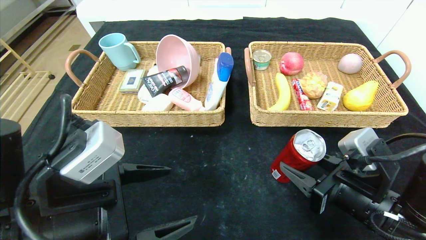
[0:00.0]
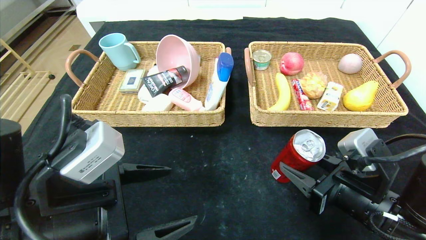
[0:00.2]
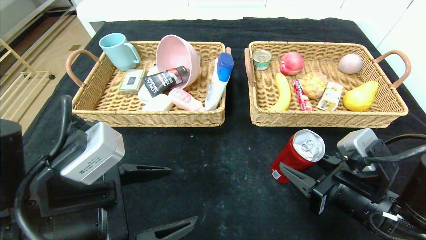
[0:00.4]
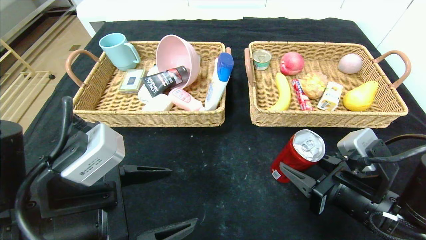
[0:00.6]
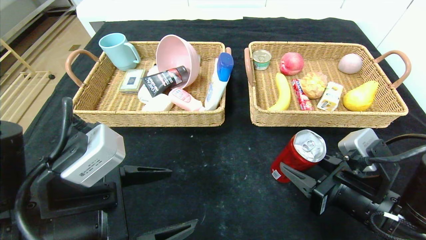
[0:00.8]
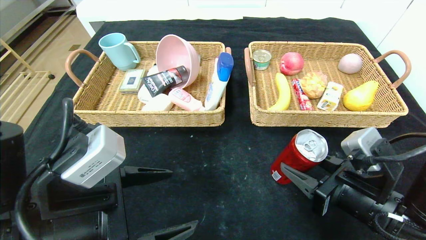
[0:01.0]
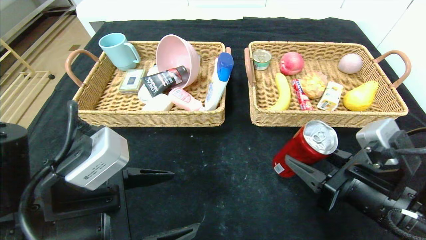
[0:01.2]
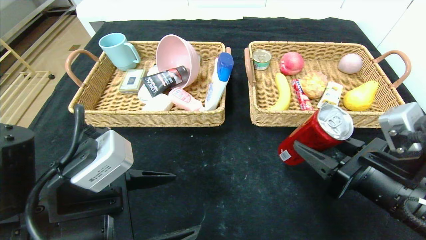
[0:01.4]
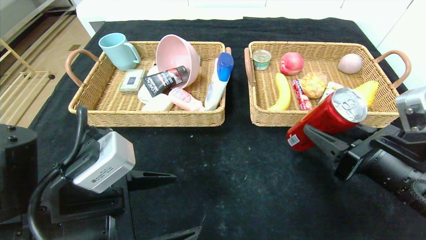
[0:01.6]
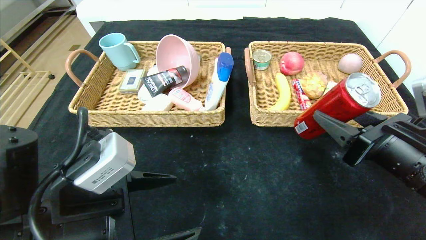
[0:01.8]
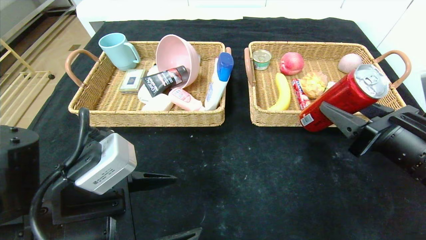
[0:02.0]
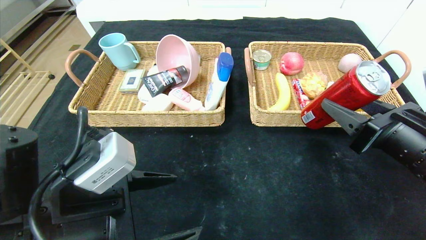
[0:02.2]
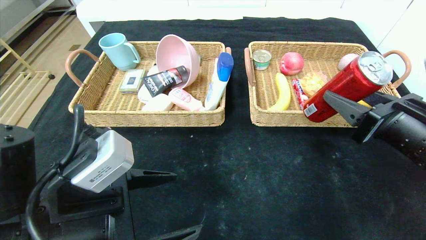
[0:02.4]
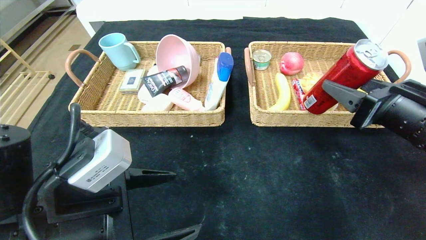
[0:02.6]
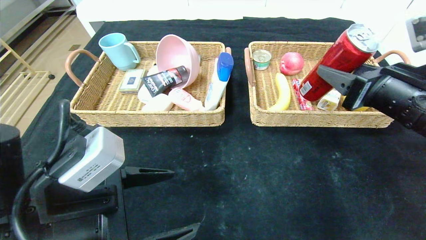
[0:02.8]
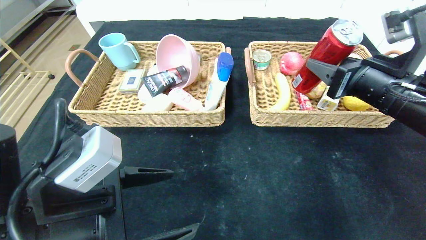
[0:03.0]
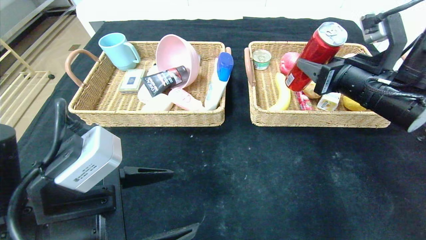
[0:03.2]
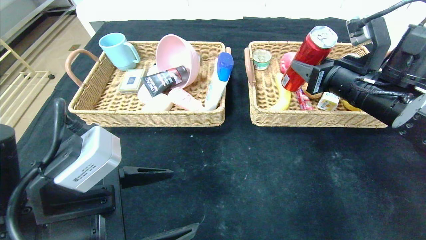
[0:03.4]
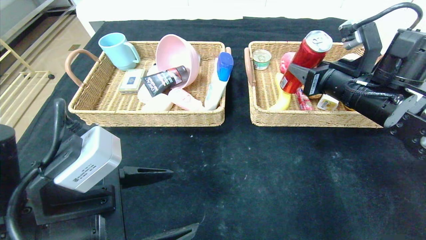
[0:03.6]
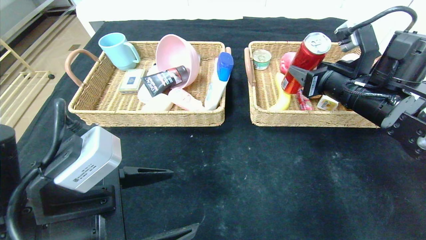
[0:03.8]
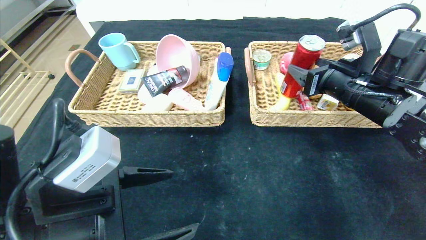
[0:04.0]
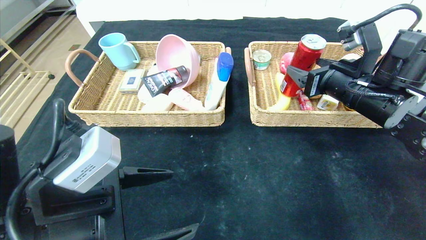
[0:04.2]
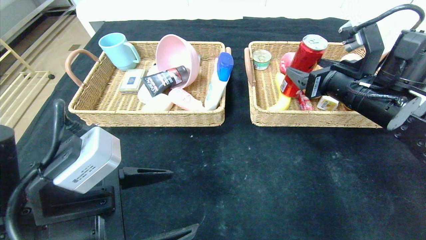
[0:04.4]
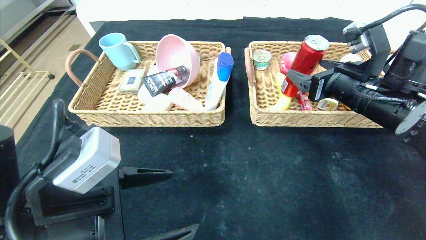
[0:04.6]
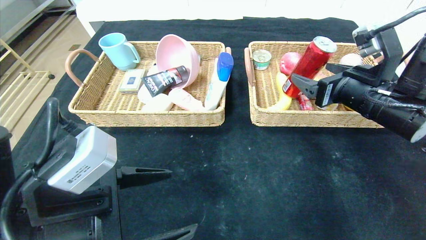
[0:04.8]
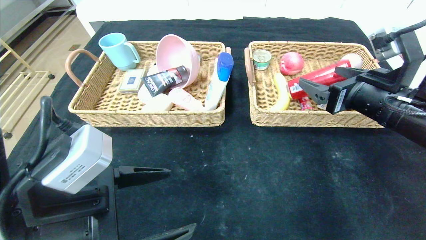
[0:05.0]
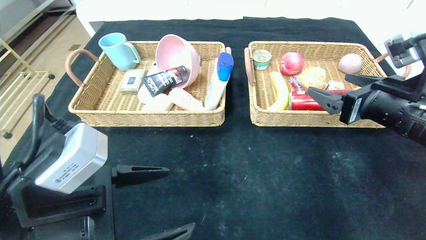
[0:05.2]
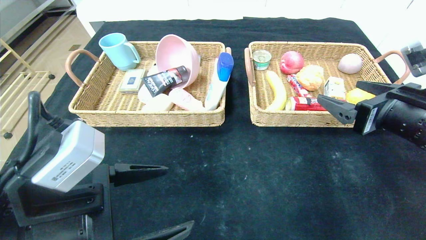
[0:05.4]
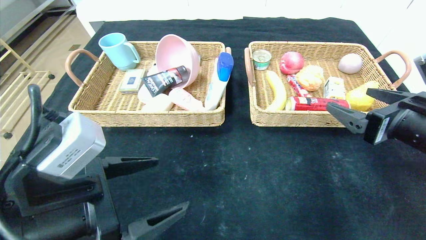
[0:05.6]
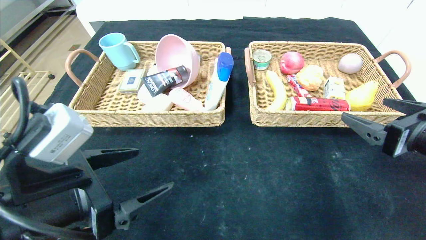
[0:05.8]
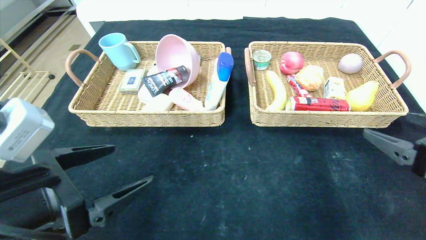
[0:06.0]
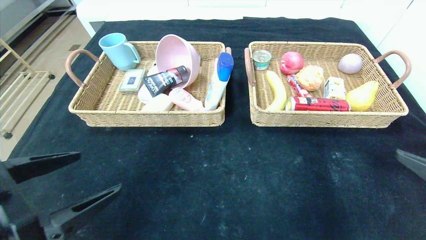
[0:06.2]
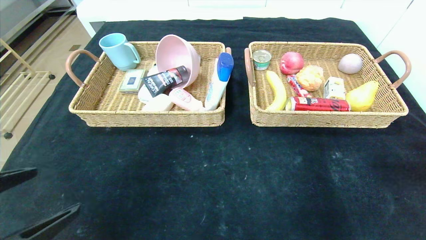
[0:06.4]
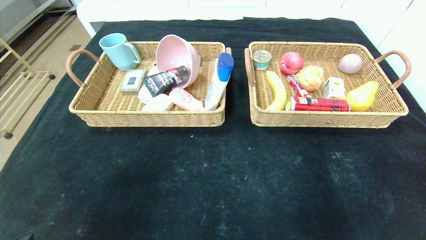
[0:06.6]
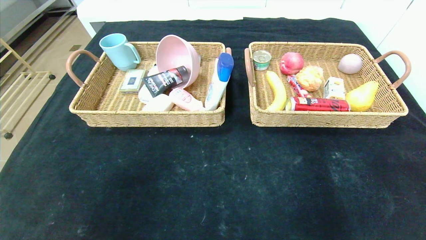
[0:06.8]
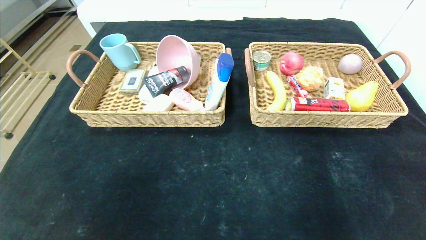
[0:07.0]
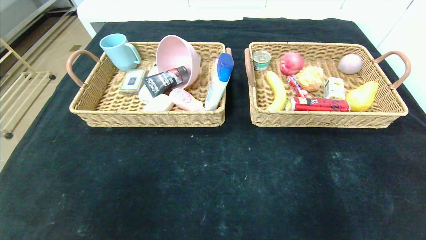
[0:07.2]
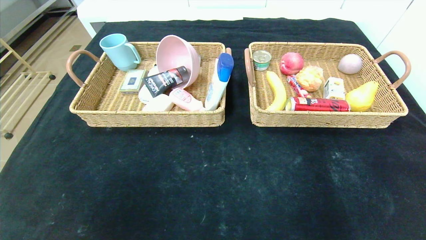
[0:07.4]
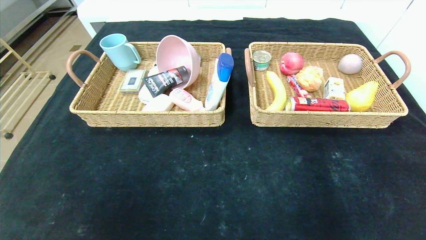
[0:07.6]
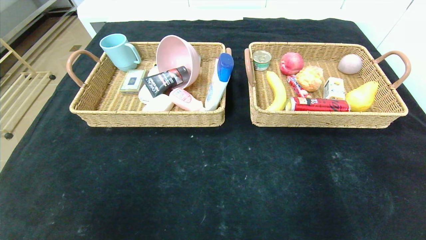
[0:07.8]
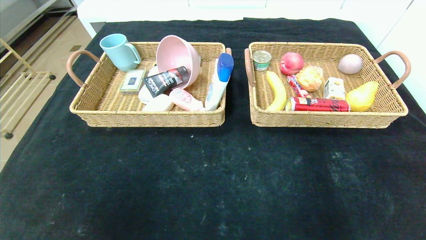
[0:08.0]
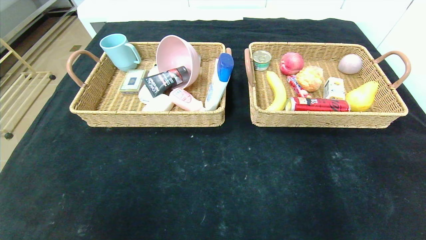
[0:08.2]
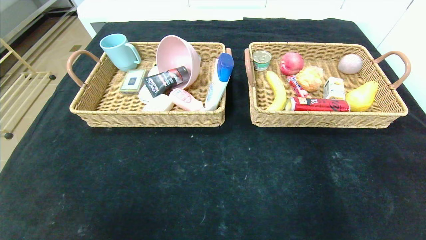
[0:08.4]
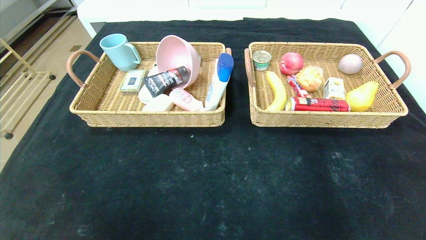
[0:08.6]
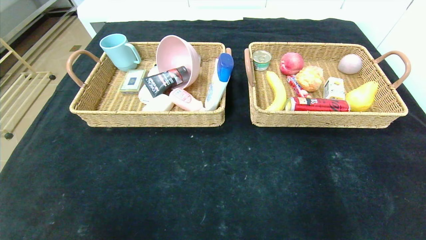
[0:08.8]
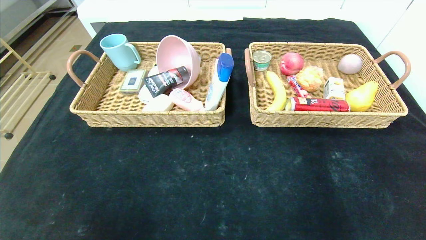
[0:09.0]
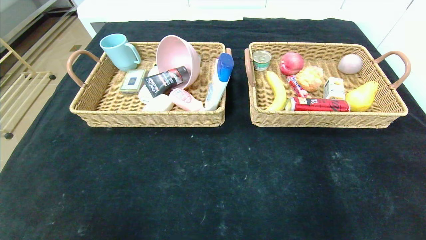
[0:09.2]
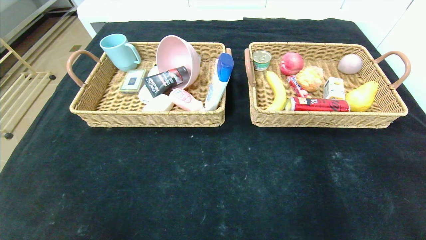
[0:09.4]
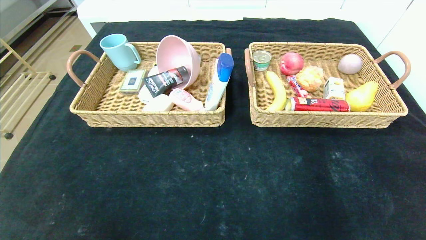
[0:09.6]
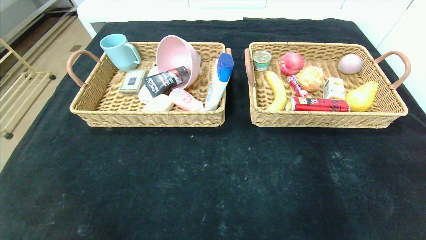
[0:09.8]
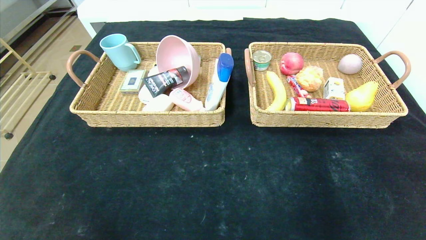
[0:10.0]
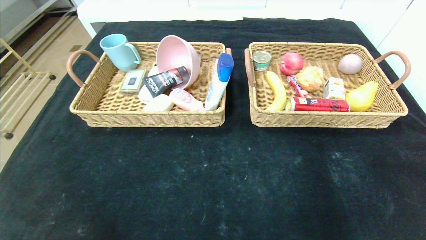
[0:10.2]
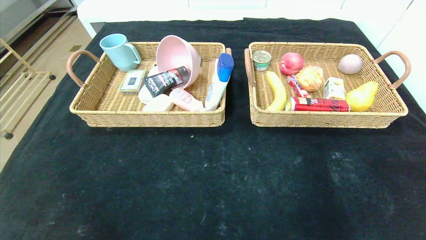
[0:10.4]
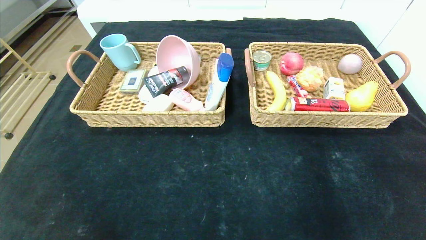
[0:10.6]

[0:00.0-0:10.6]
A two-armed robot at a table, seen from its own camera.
Step, 0:00.0 to 0:04.6: Grasp the canned cola and put it in the right basket.
0:00.0 to 0:01.6: The right gripper is displaced upward by approximately 5 cm.
0:01.6 to 0:03.0: The right gripper is displaced forward and upward by about 10 cm.
0:03.0 to 0:04.6: The right gripper opens.
0:04.6 to 0:06.0: The right gripper moves backward and to the right, roughly 15 cm.
0:06.0 to 0:07.6: The two grippers go about 20 cm backward.

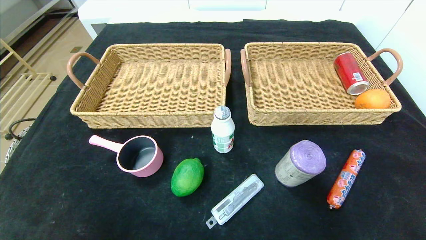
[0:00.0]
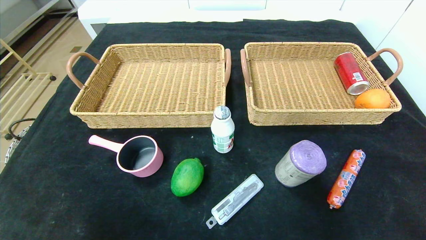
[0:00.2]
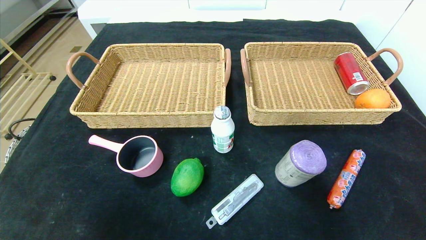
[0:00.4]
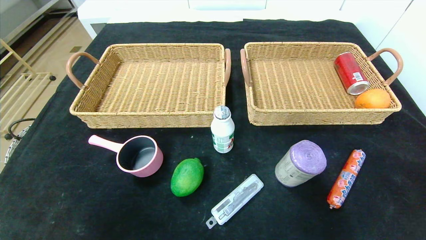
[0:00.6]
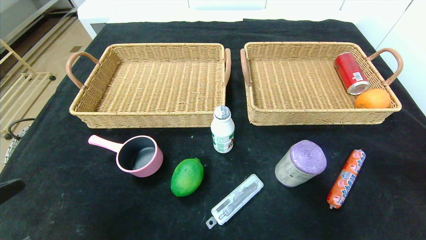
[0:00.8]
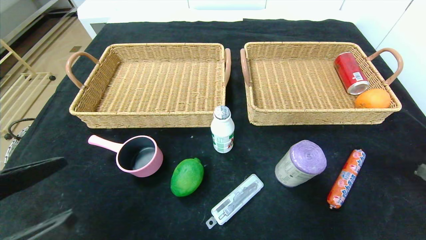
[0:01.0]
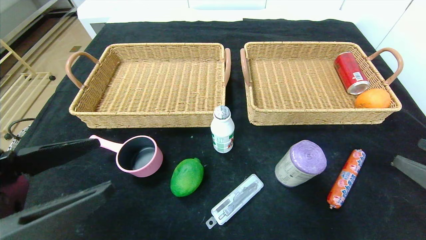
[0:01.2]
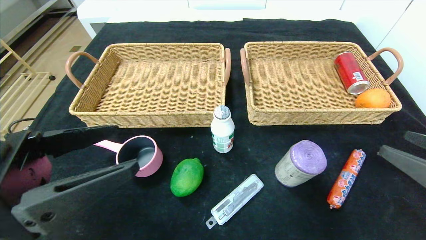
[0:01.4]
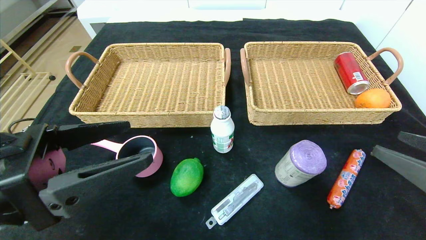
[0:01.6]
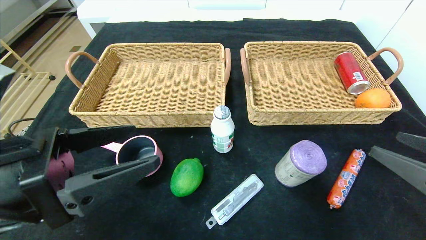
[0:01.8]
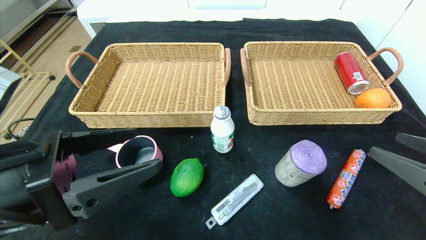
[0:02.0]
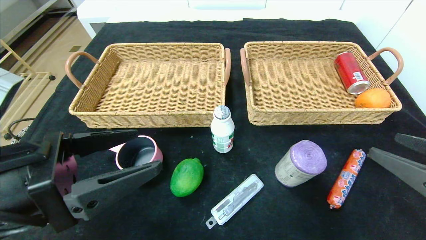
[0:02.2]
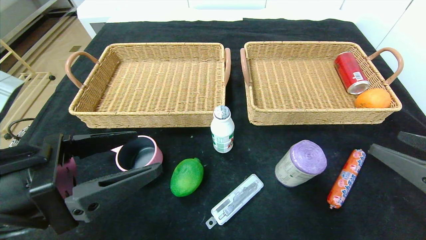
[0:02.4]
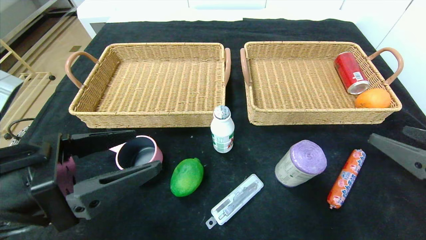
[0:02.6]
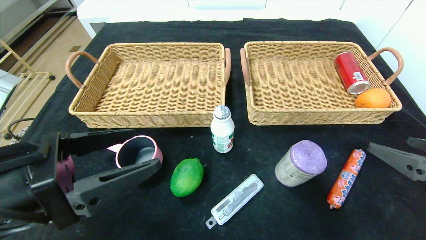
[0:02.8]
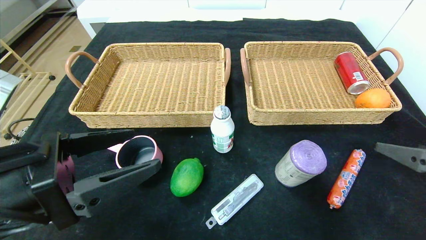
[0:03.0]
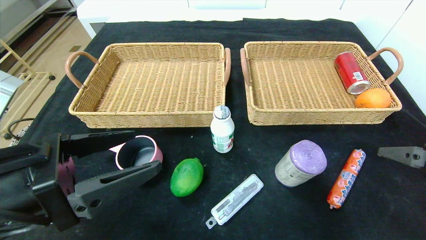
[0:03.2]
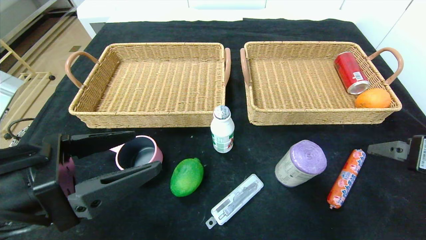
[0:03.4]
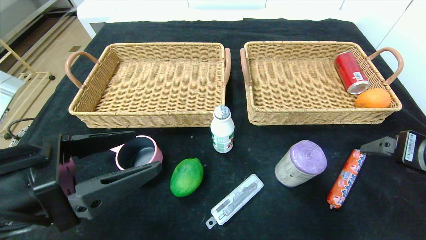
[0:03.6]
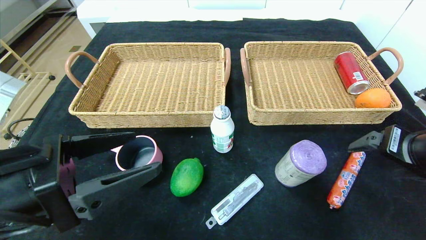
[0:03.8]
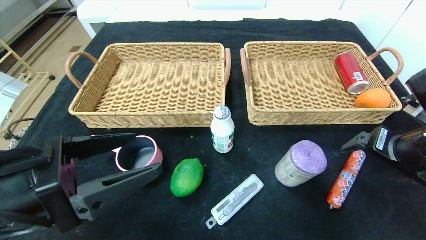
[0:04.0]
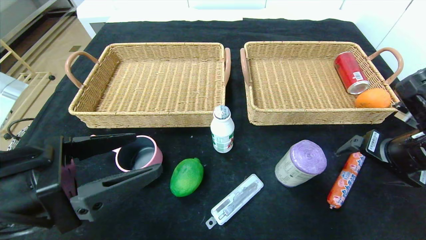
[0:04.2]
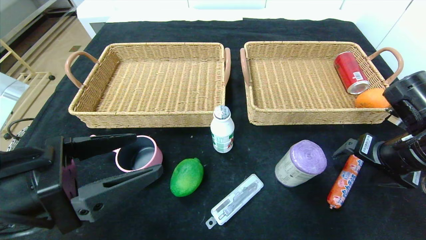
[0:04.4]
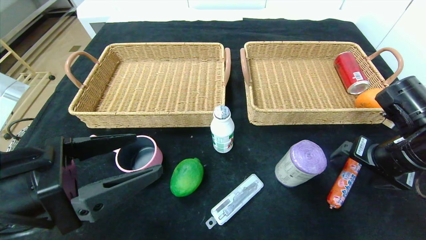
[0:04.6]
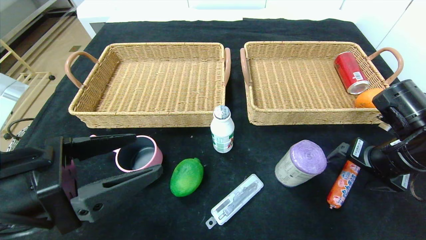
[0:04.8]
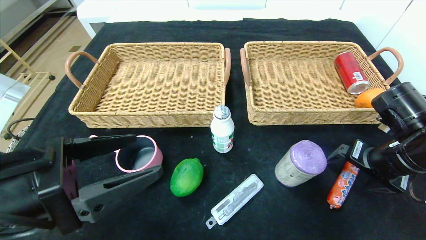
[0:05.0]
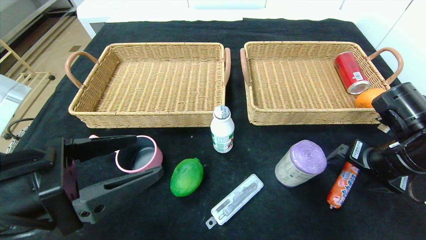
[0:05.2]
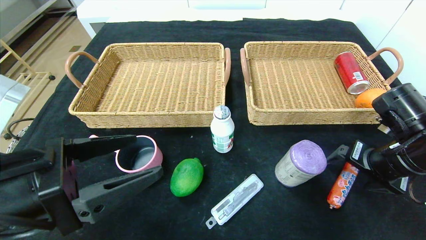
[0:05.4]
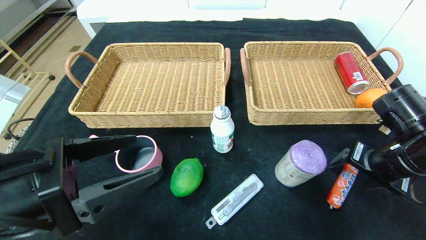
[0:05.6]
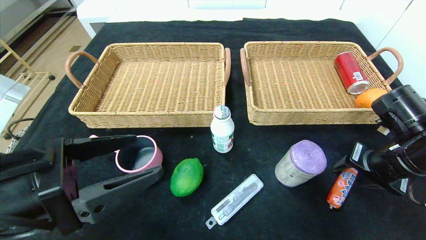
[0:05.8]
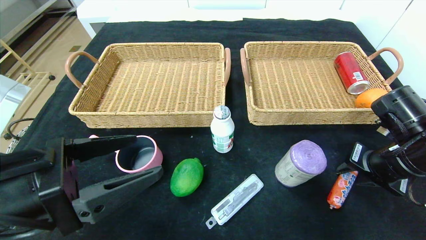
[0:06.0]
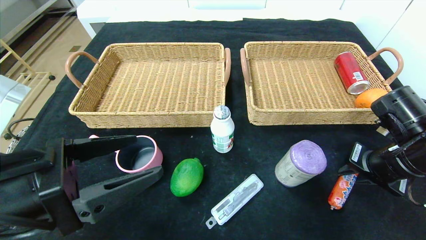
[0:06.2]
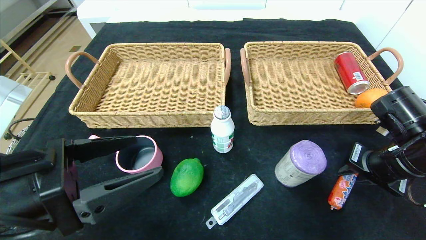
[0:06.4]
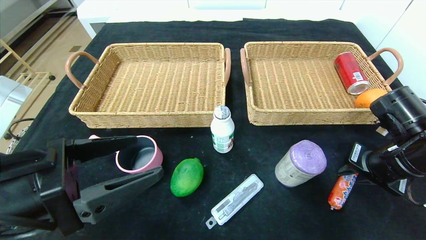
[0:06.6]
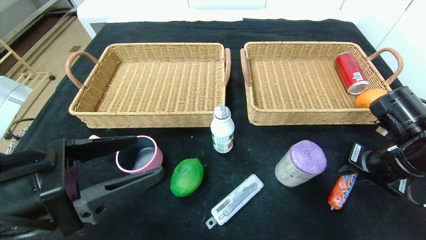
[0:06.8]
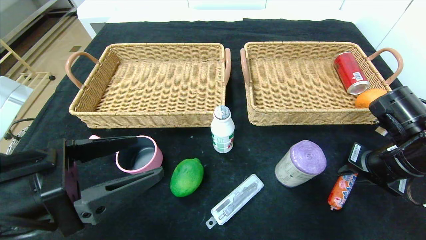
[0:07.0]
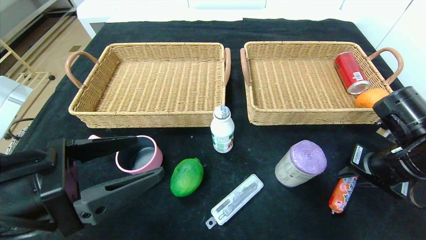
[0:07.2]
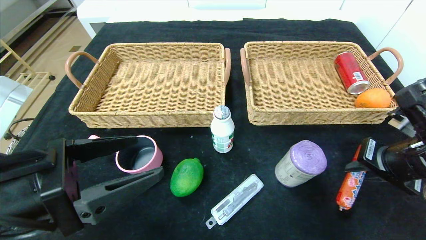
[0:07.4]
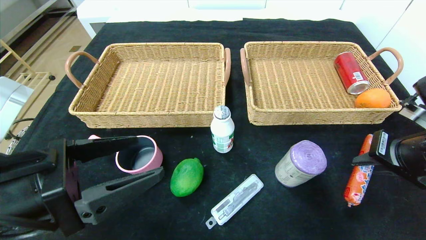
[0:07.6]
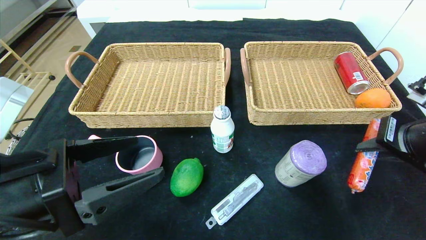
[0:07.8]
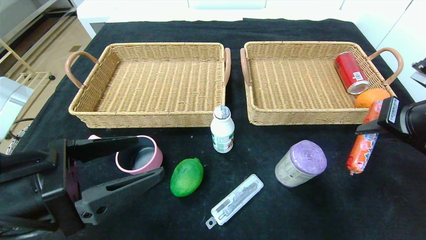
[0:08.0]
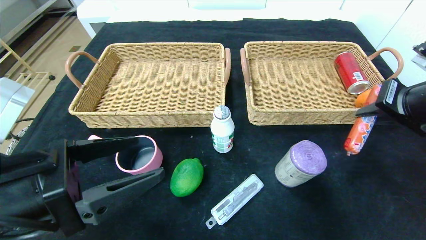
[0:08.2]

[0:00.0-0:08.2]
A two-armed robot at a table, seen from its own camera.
0:00.0 to 0:01.6: The left gripper travels upward, forward and to the right by approximately 25 cm, while the right gripper moves forward and upward, about 20 cm.
0:03.2 to 0:05.0: The right gripper goes approximately 10 cm forward.
0:05.0 to 0:06.6: The right gripper closes its fingers.
0:06.6 to 0:08.2: The right gripper is displaced upward by some 10 cm.
